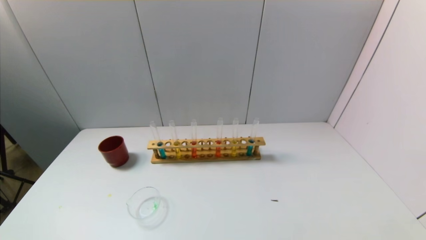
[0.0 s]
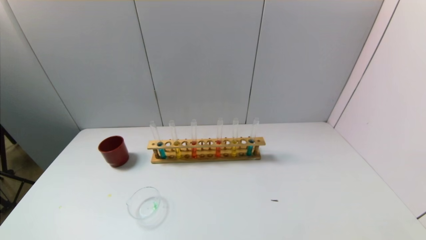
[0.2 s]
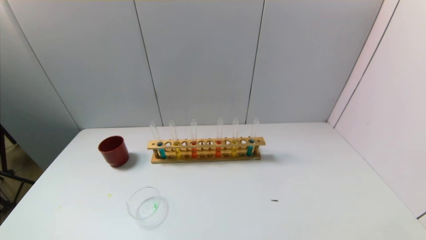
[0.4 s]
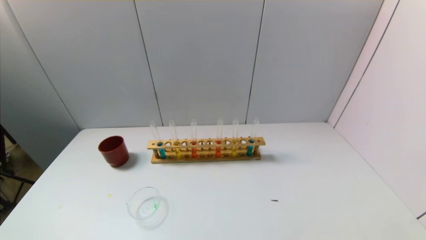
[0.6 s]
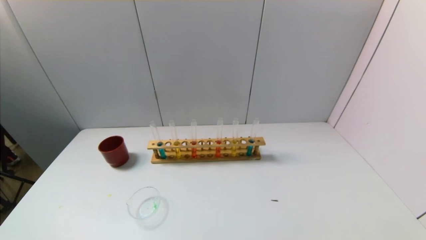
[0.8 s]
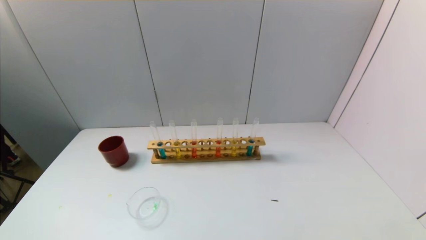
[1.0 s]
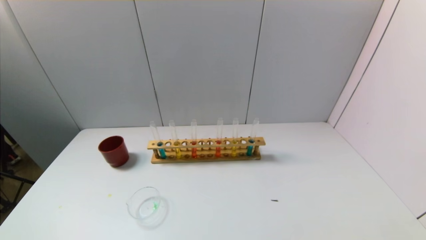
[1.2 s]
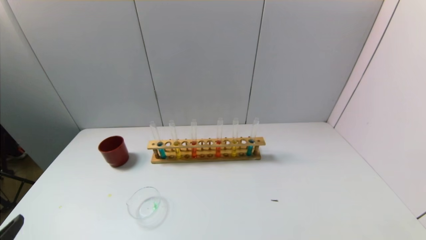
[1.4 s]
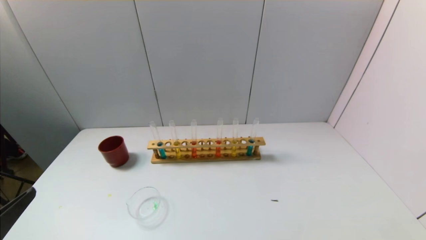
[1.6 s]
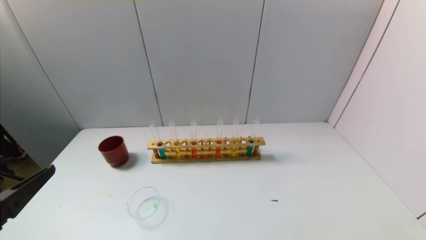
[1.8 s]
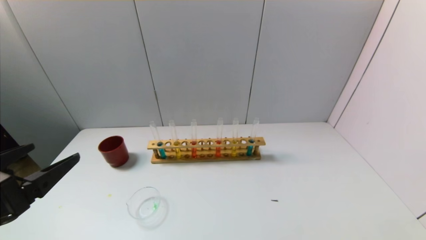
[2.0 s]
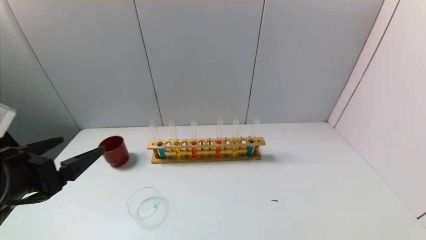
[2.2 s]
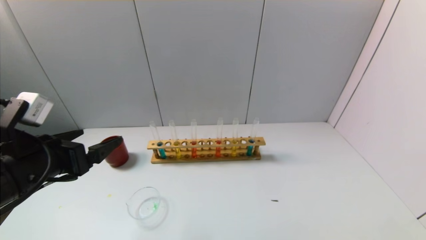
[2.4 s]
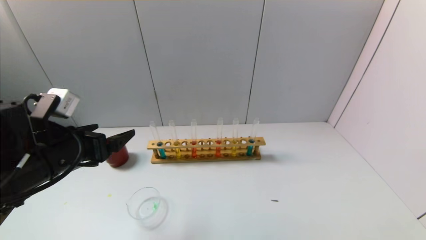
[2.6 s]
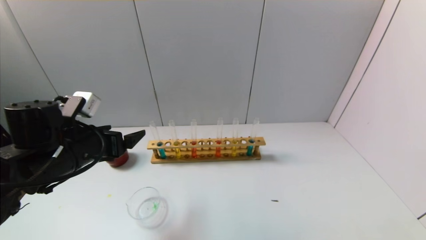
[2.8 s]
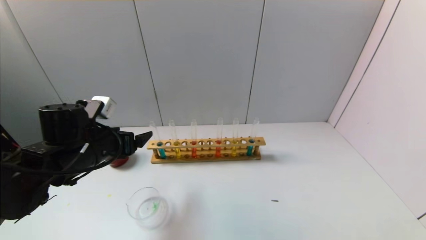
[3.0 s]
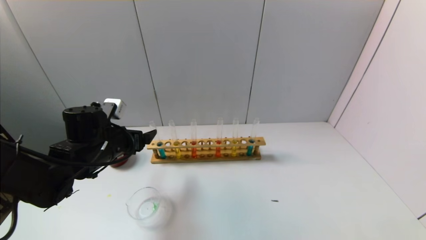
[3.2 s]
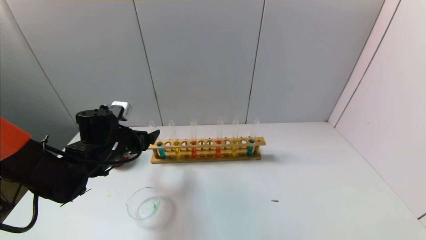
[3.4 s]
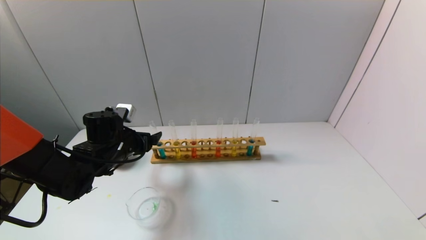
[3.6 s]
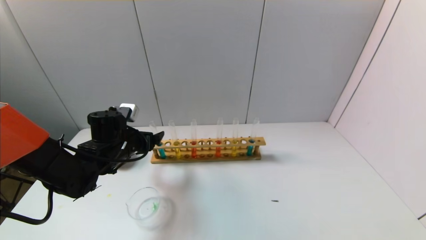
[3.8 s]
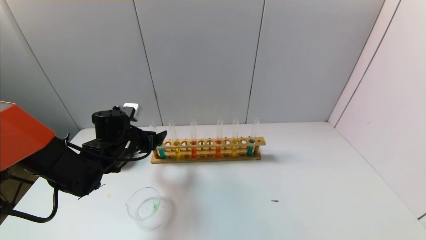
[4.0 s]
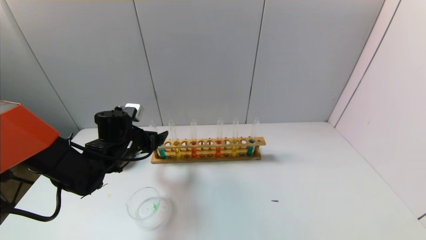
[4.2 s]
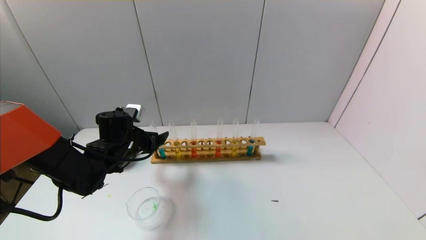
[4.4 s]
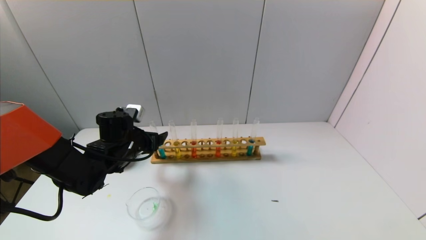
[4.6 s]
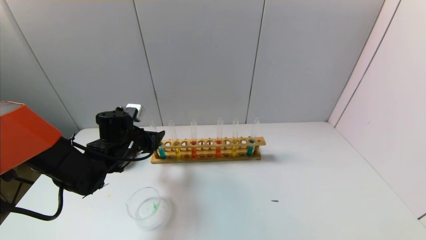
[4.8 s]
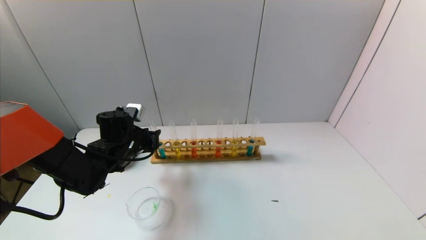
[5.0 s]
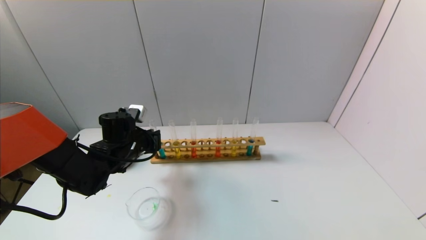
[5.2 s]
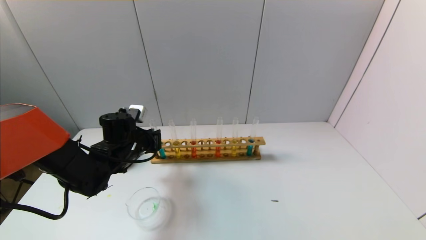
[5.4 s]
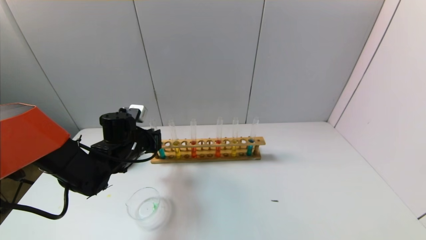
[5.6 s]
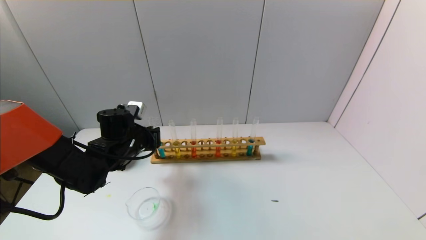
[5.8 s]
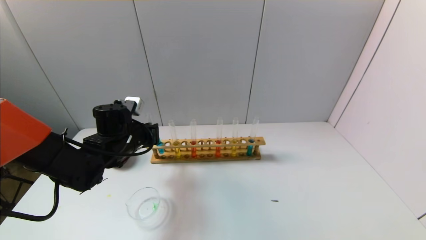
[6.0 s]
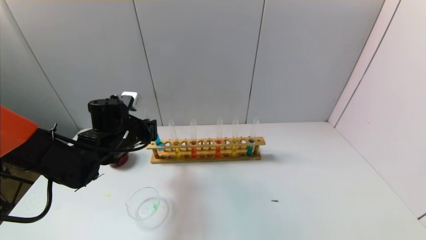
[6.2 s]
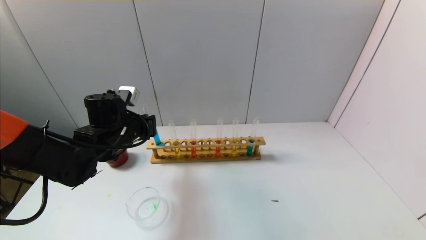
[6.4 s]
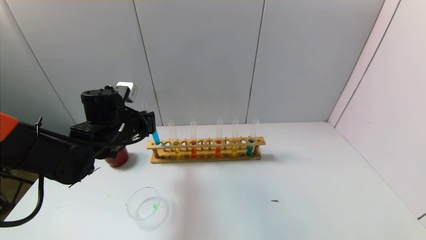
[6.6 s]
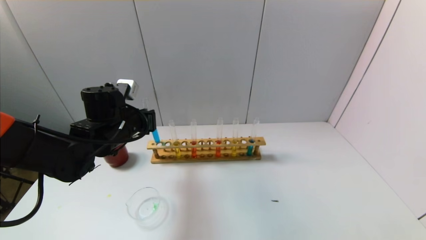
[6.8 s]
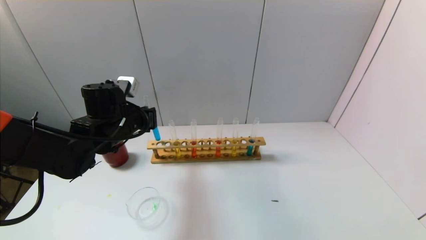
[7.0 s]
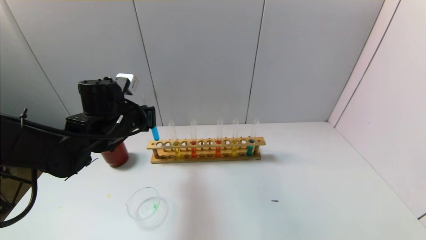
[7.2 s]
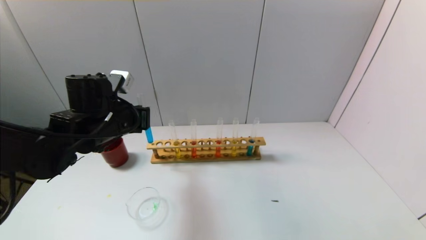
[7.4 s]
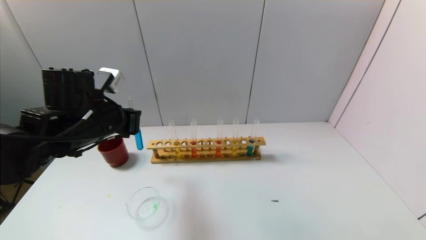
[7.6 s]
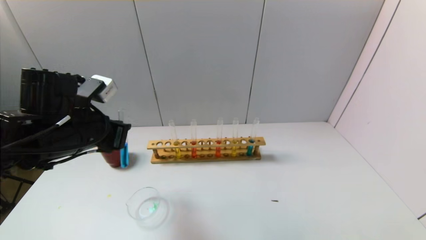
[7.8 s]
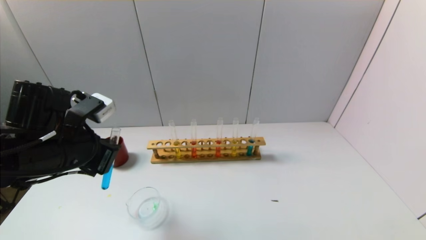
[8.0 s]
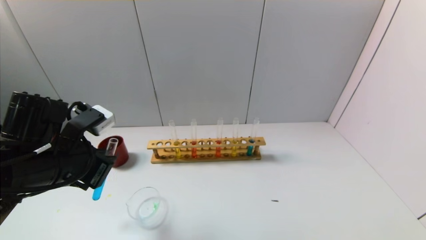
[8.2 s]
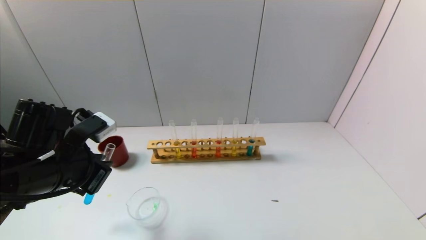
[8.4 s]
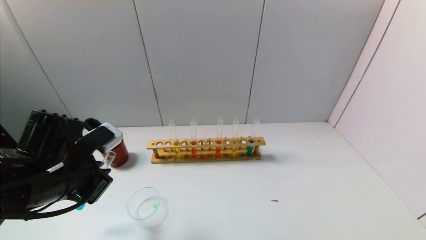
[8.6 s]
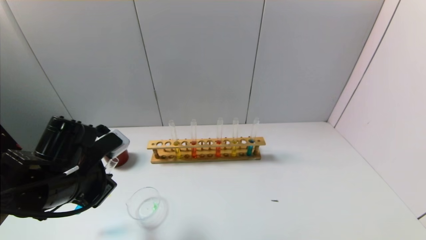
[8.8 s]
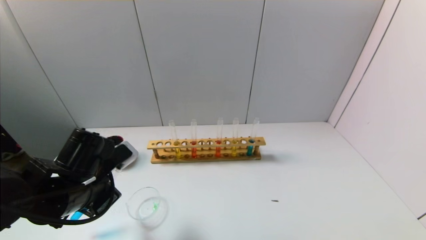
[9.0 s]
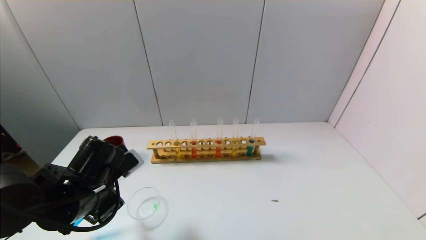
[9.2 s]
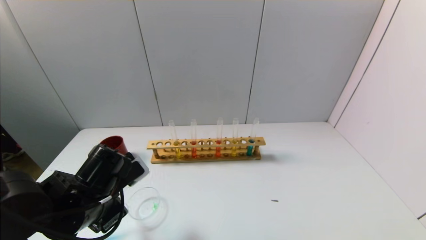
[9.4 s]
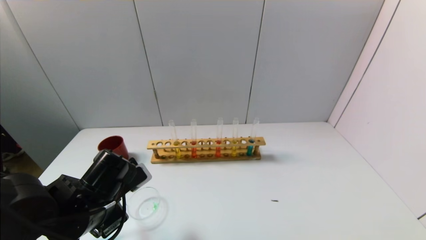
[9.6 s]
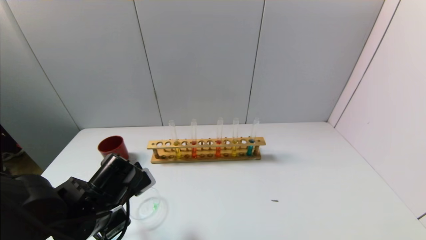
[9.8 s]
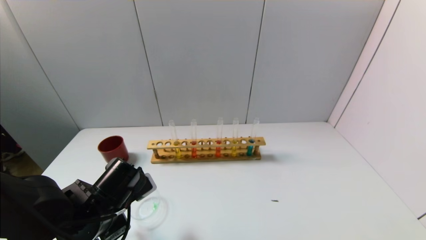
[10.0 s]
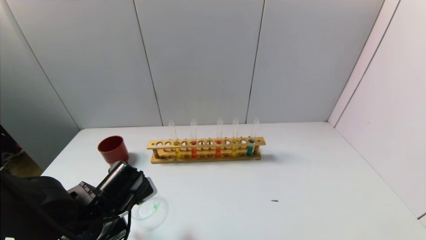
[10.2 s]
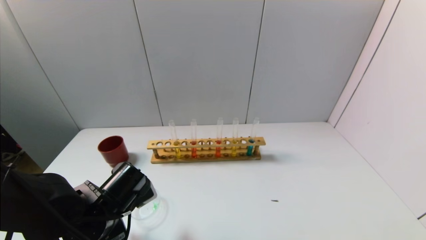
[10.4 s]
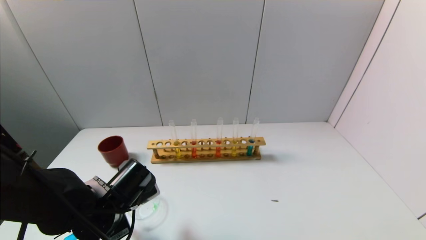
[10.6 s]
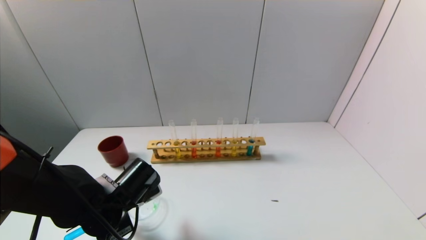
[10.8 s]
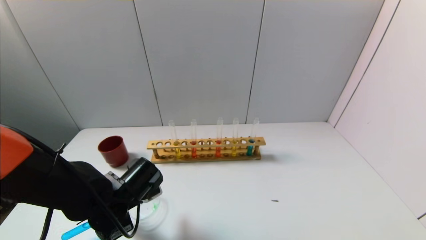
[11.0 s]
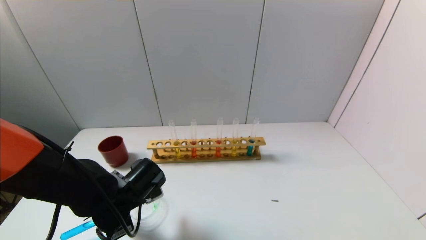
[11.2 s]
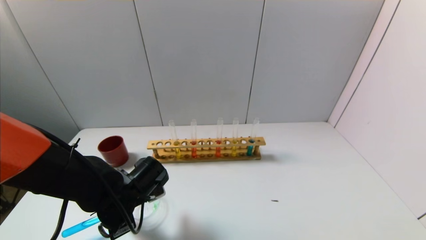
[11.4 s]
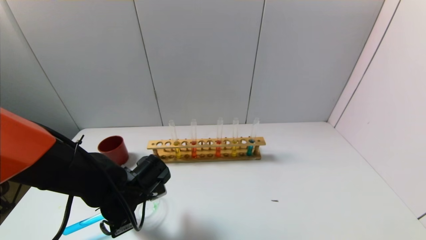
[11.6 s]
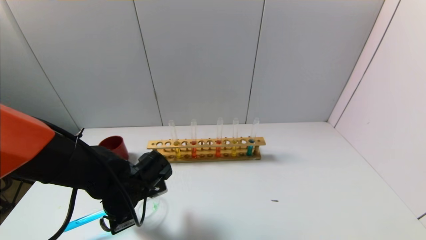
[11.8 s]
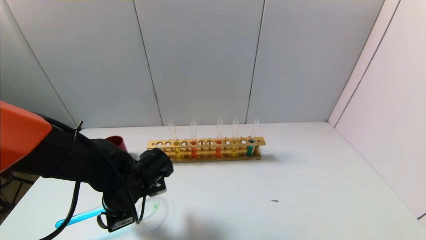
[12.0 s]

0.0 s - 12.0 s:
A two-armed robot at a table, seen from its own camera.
Task of the whole recording: pick up the test tube with yellow pigment and the test tube with blue pigment by grippers and pour them into the beaker.
Step, 0.0 s - 5.2 s: Grasp the blue reagent with the left gripper.
0.0 s - 1.6 s: The left gripper heads upward and forward, covering roughly 15 cm.
1.6 s - 3.0 s: The left gripper moves forward, roughly 25 cm.
3.0 s - 4.4 s: The left gripper shifts some 5 cm forward.
4.4 s - 6.0 s: The left gripper closes its fingers.
6.0 s - 7.6 s: The left gripper shifts approximately 10 cm upward and backward.
7.6 s - 9.0 s: The left gripper shifts about 10 cm downward and backward.
9.0 s - 10.4 s: The left gripper goes about 5 cm downward.
10.4 s - 12.0 s: The grippers move only a little.

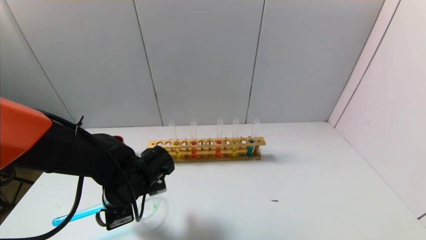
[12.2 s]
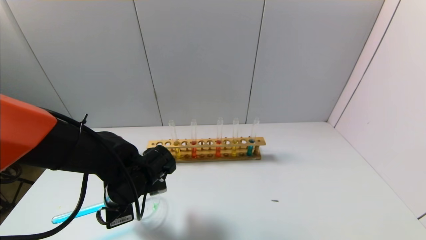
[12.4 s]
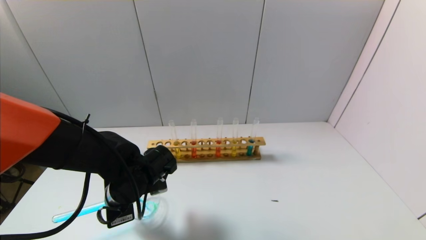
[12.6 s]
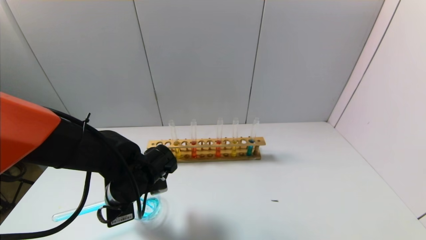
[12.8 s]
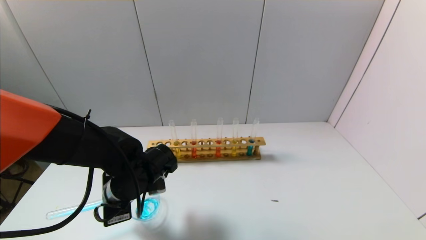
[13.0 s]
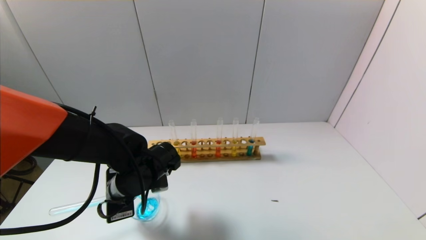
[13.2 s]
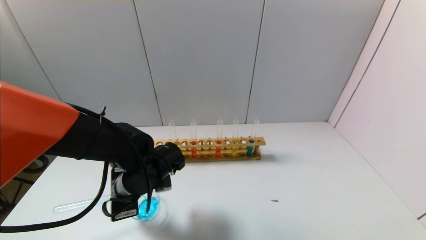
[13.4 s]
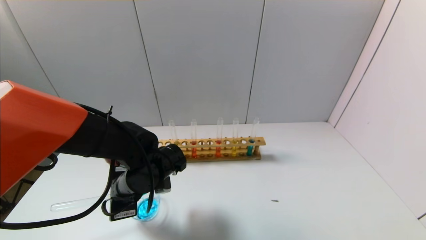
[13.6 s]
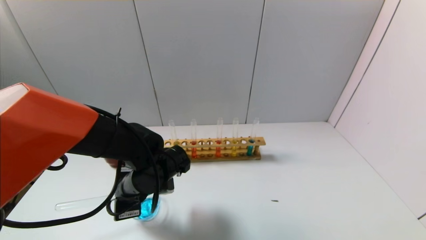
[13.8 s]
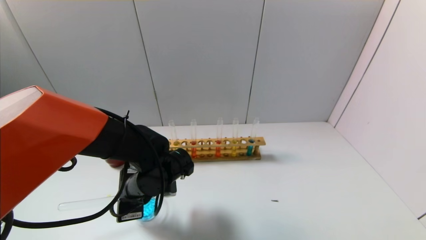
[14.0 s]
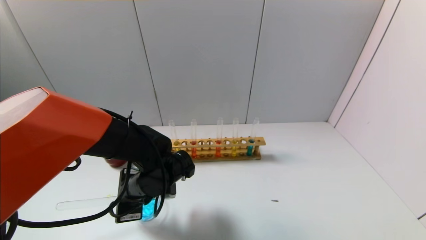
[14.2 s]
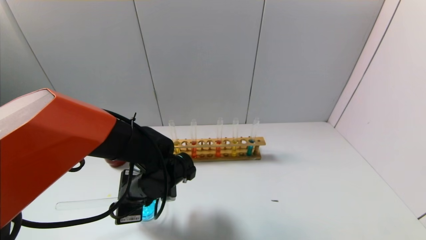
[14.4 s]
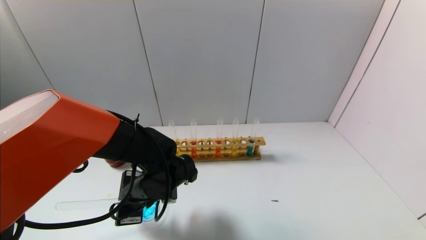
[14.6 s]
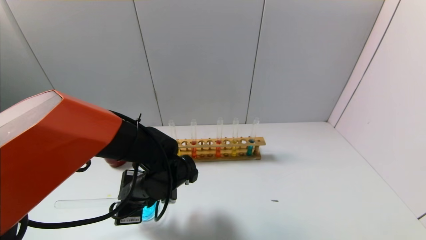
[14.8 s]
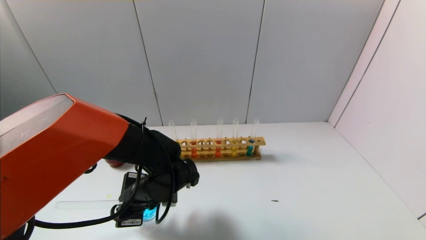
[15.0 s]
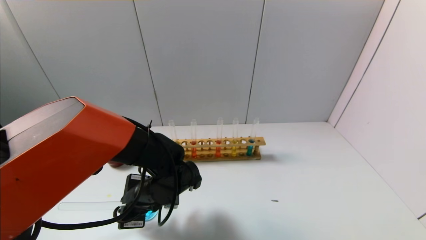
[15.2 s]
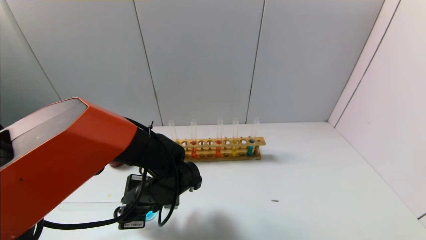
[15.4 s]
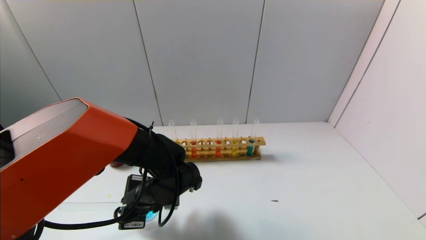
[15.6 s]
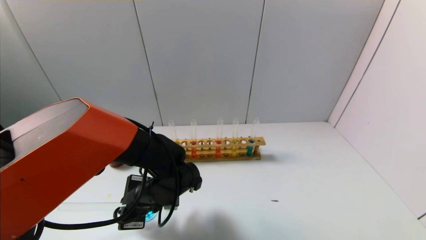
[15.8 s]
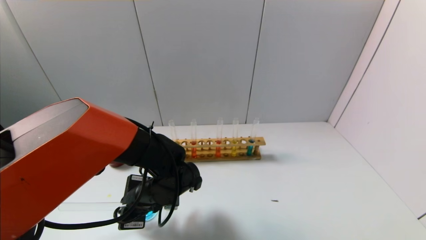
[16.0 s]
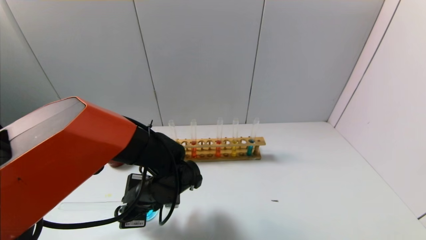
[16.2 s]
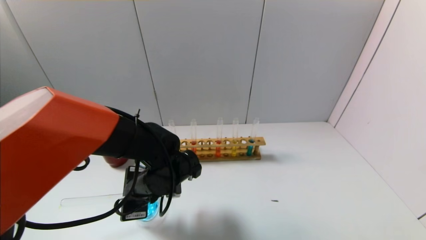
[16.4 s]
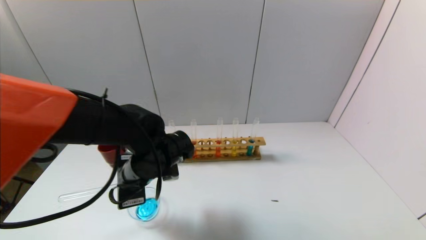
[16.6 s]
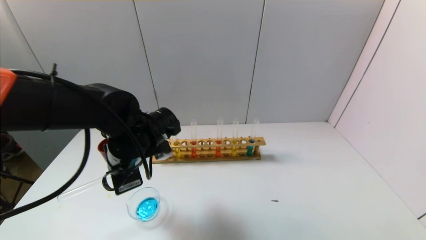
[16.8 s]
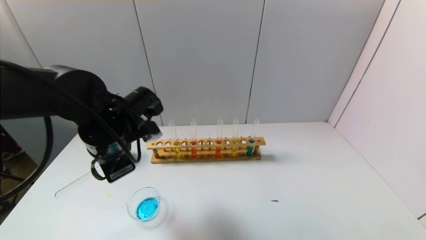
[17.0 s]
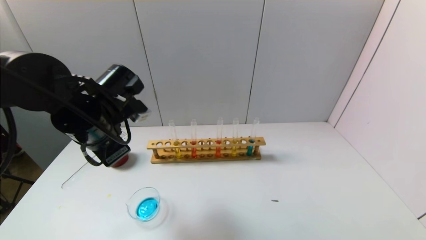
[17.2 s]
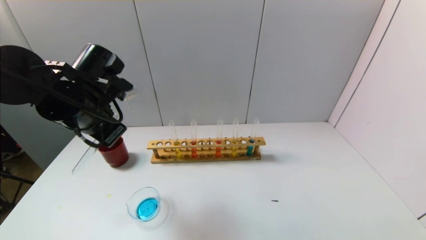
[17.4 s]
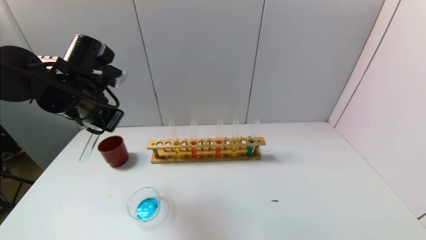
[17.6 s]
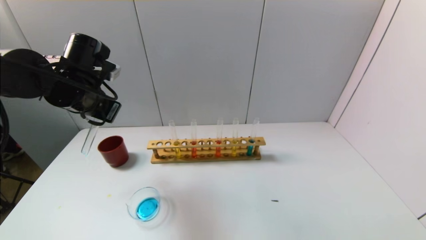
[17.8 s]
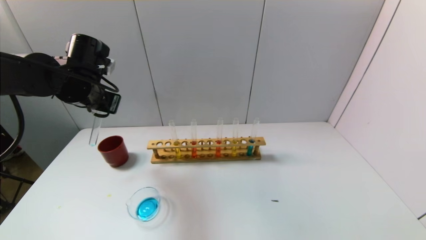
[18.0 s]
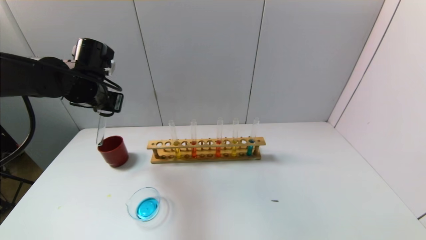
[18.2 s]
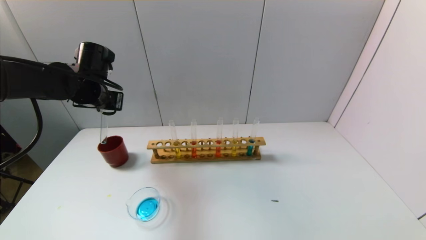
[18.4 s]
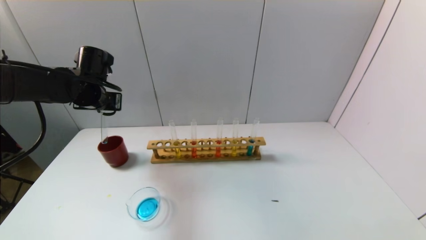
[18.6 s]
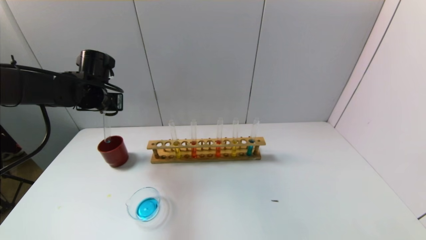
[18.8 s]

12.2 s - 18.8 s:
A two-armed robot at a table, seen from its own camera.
Task of the whole recording: pick up the test tube with yellow pigment and the test tube with blue pigment by grippers and pour them into the beaker.
Step, 12.2 s - 16.6 s: Pour the blue reagent into the graduated cylinder with the left gripper.
12.2 s - 13.8 s: The grippers stay close to where they were, moving slightly.
13.8 s - 15.4 s: The grippers make only small movements.
15.4 s - 17.2 s: The left gripper moves upward and to the left, roughly 20 cm.
17.2 s - 18.8 s: The left gripper heads forward and to the left, covering approximately 15 cm.
